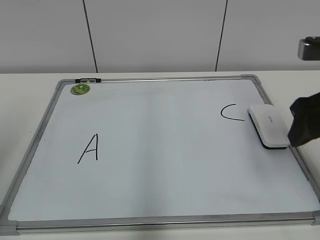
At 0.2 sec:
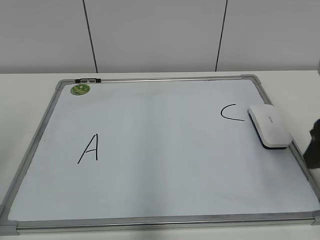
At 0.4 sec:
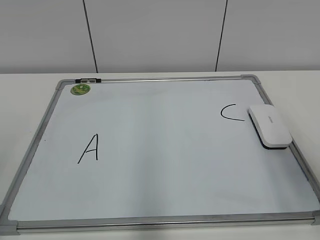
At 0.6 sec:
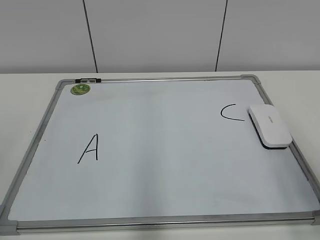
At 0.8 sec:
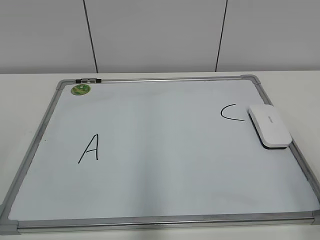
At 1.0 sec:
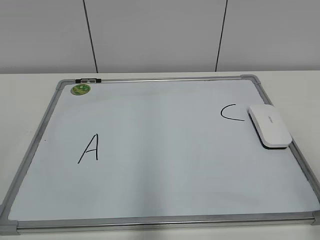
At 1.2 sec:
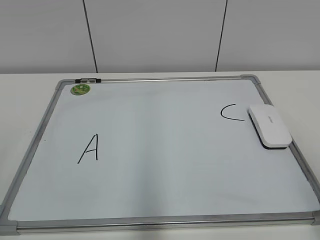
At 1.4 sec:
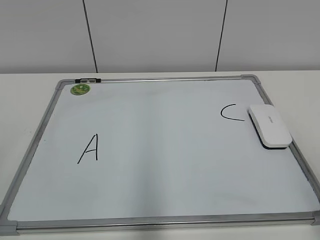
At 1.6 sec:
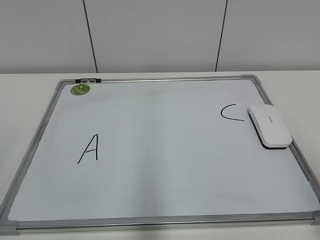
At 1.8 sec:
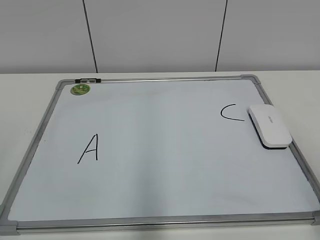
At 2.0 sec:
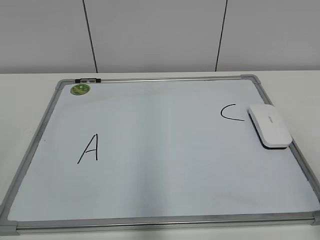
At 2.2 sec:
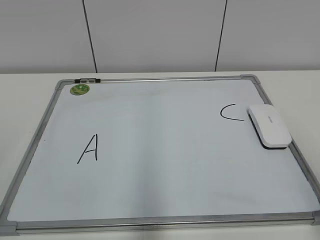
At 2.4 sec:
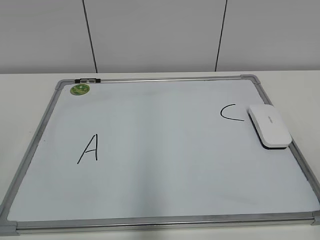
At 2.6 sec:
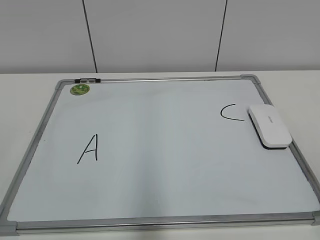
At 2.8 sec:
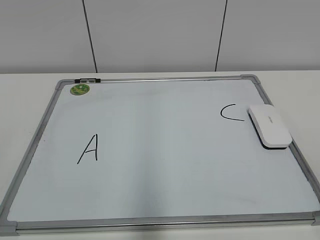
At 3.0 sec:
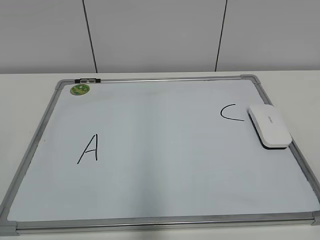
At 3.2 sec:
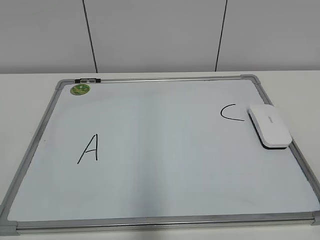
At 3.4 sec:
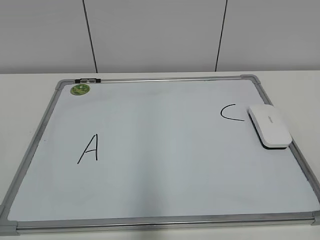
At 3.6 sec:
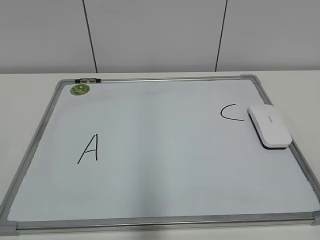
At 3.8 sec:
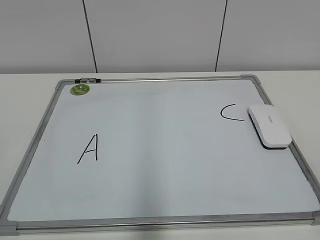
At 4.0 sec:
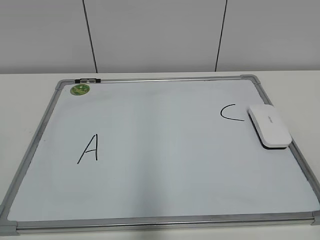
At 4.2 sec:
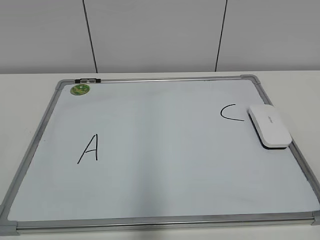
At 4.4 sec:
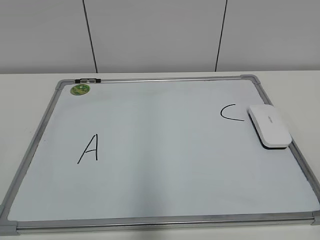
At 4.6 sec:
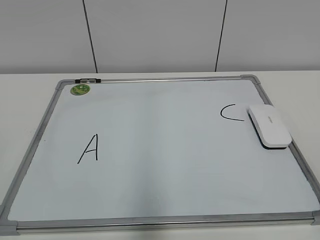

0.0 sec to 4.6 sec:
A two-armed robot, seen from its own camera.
Task of the whole recording: pick up the eraser on the blackboard and erase the letter "B".
0.0 sec to 1.6 sec: The right gripper travels backward by about 20 cm.
